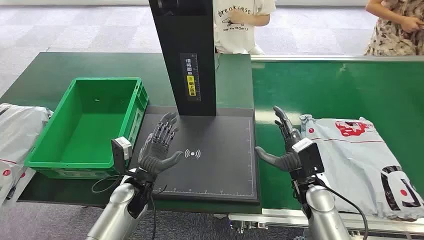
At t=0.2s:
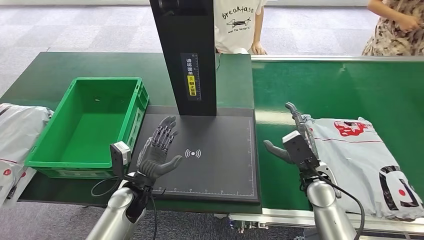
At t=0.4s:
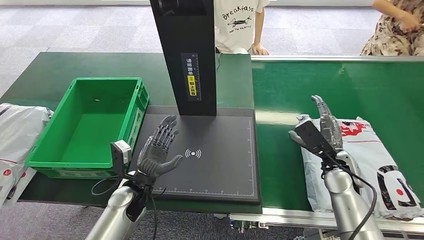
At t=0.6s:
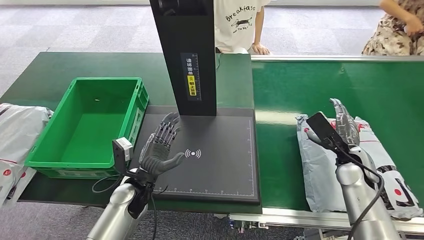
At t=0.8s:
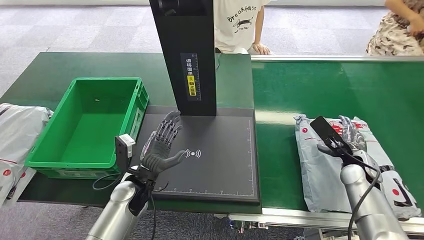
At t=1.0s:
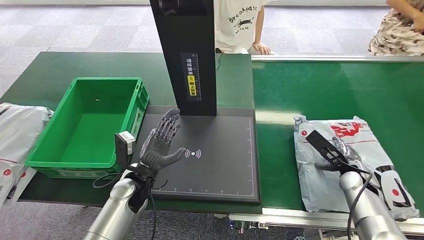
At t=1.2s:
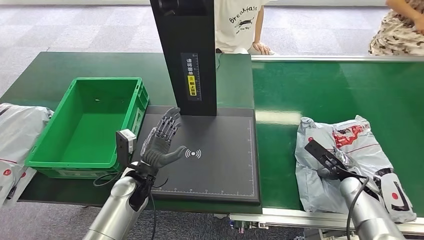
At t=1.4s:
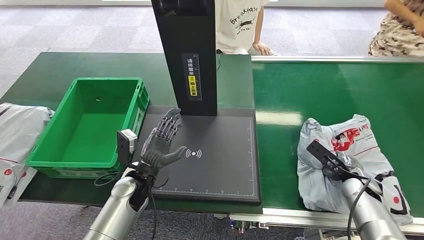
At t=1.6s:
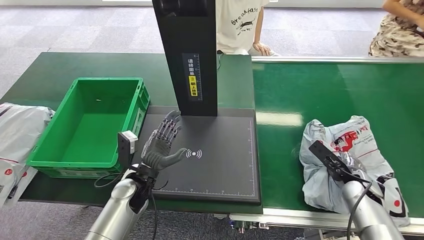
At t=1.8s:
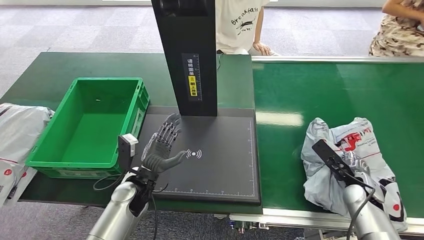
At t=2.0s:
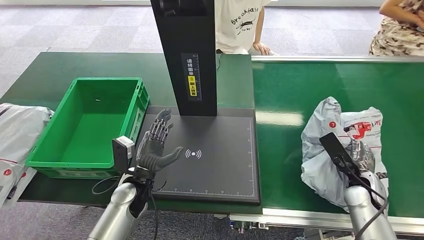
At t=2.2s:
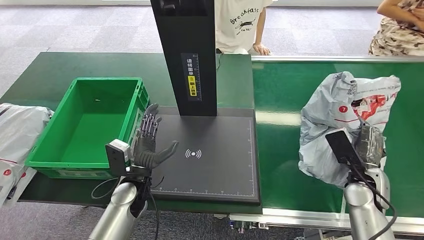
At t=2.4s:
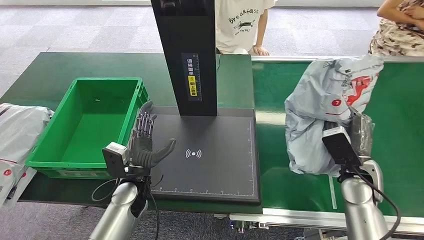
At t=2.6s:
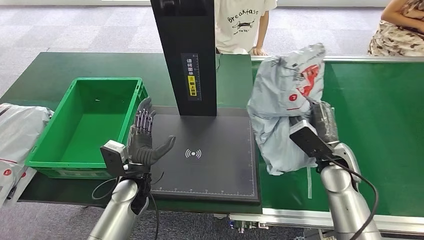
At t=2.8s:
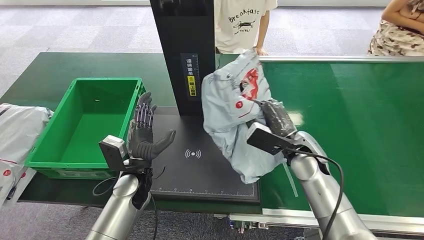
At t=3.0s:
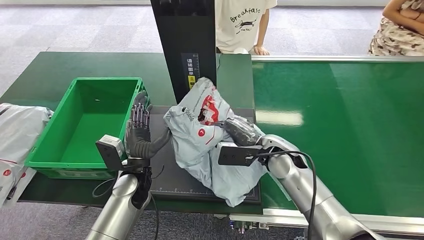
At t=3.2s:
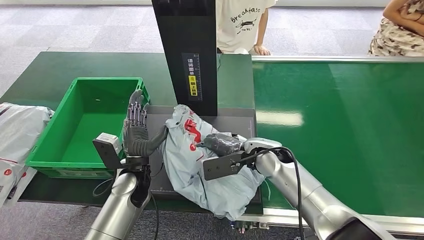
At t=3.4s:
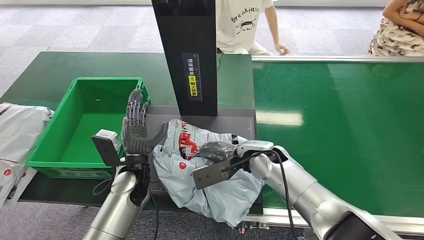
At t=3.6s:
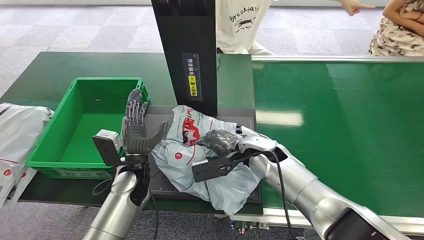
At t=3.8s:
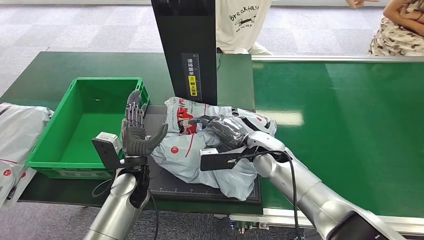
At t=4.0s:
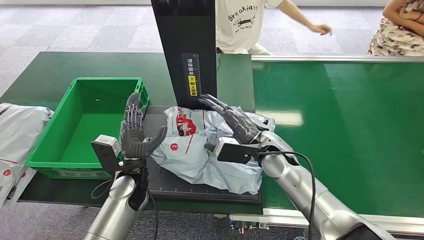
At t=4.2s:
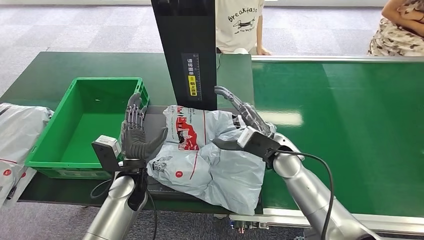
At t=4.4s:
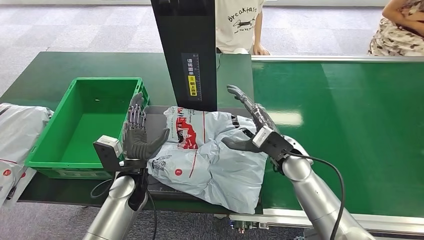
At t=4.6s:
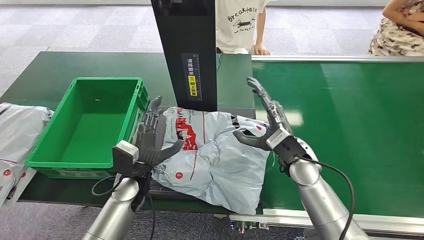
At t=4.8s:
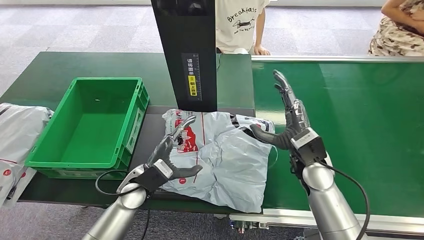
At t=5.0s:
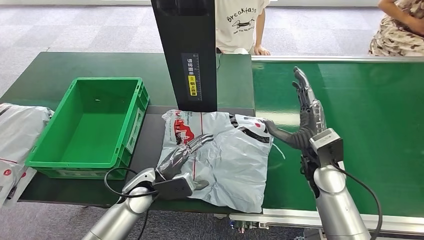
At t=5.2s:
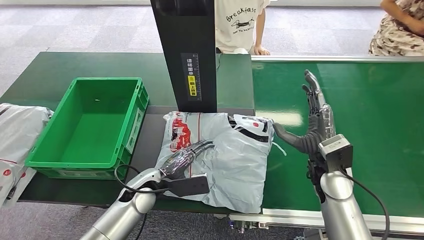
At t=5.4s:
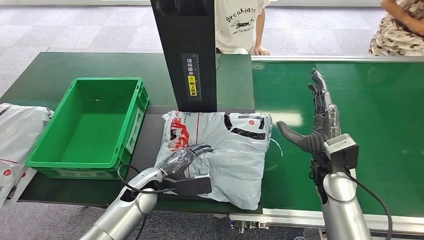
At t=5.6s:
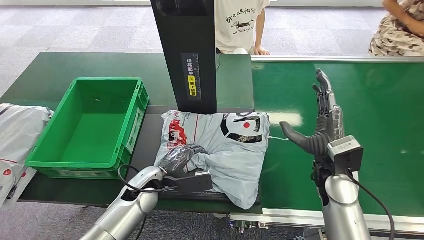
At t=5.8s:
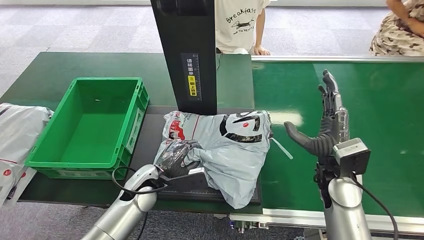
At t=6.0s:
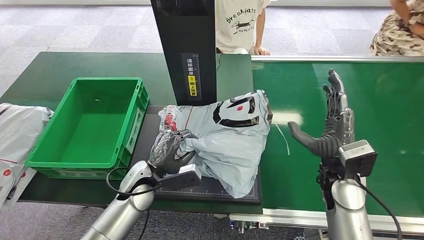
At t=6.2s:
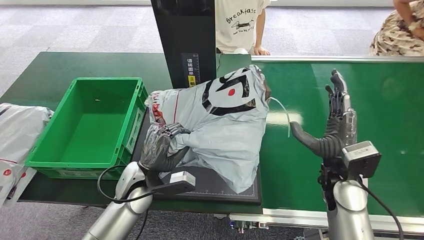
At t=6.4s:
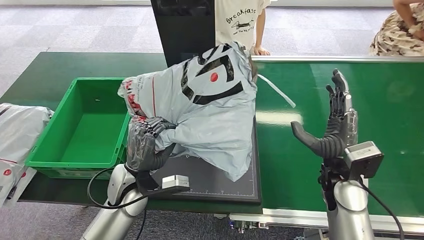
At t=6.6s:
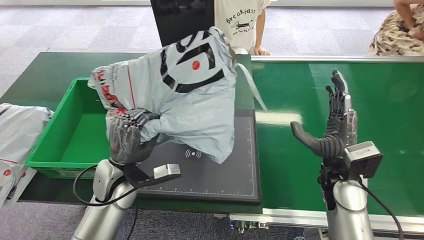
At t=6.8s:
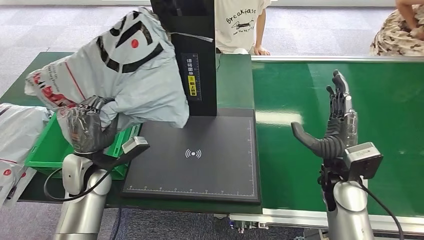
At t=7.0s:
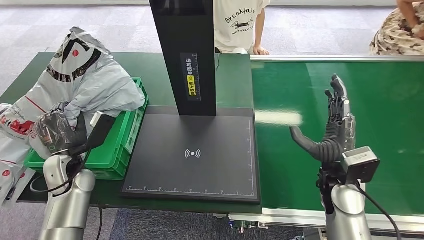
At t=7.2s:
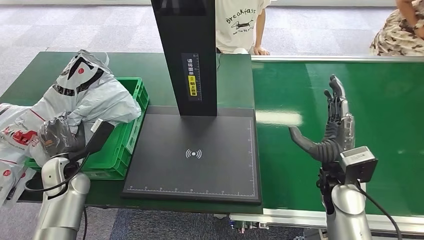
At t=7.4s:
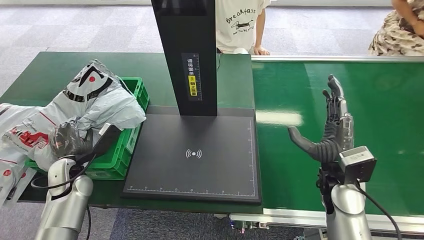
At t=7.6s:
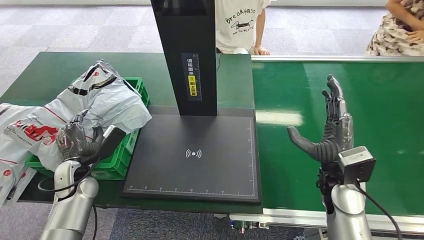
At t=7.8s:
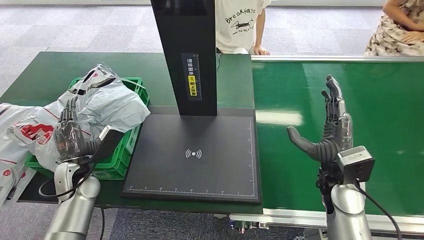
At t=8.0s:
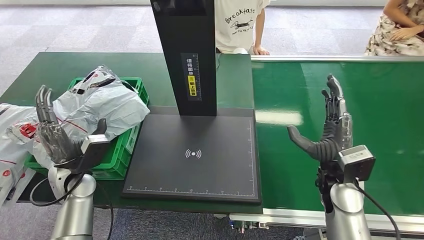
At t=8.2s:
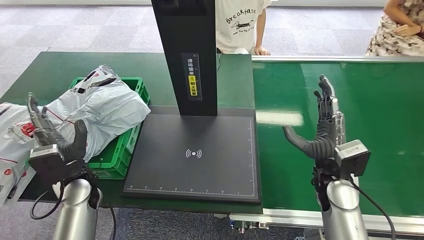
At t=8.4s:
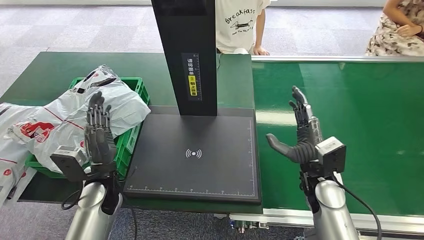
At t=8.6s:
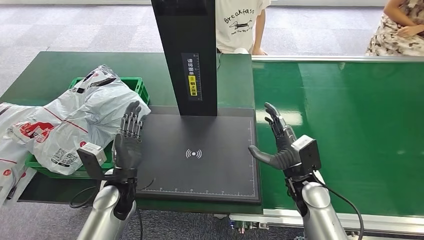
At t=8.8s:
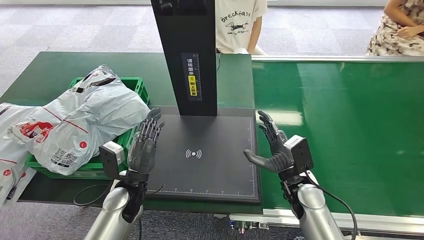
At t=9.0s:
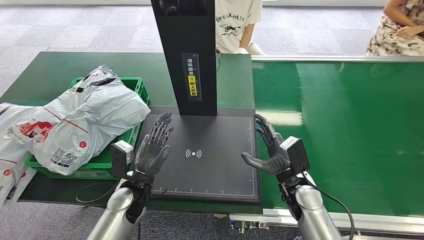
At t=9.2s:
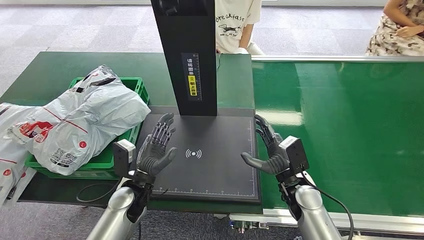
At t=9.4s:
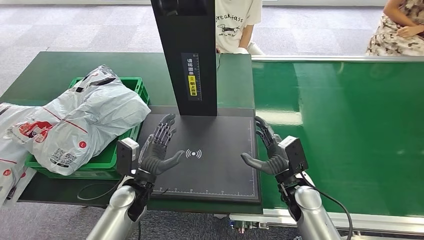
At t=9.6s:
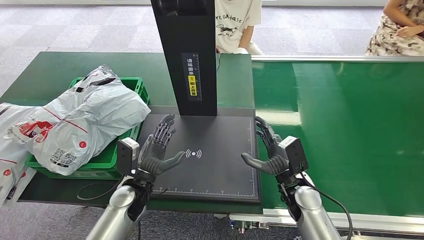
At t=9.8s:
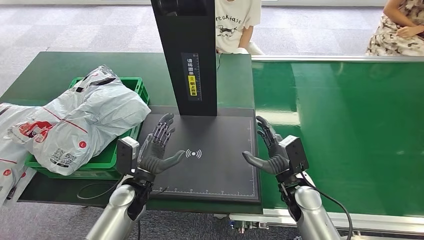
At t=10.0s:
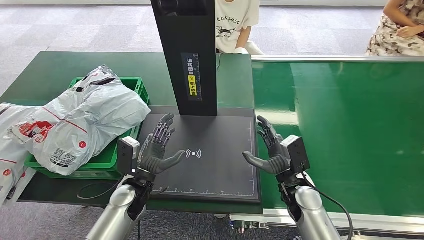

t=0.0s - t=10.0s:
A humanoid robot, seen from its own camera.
Task of the whole recording: Weigh the package on the weighing device and place it in the left basket.
Step, t=0.0s - t=2.2s: Pick up the package from the conveyor belt.
Step, t=2.4s - t=4.2s: Place the package onto the inbound machine.
Step, t=4.6s - t=6.6s: Pick up the package from the inbound machine.
Step, t=6.8s - t=10.0s: Place the package into the parcel locker.
t=8.6s - t=10.0s: The hands move only a little.
